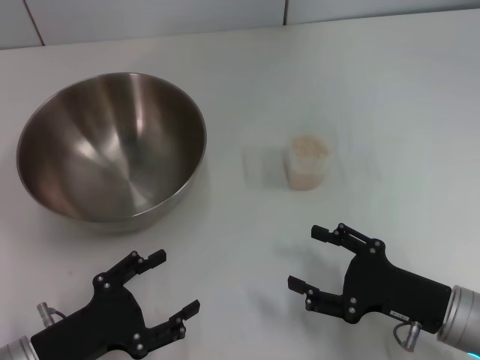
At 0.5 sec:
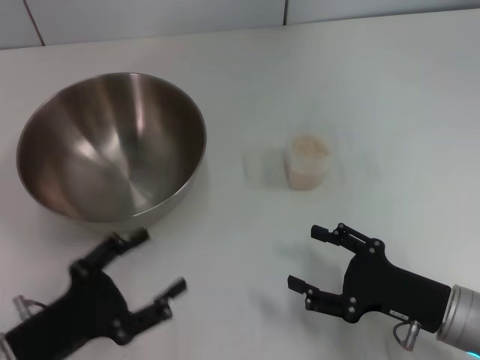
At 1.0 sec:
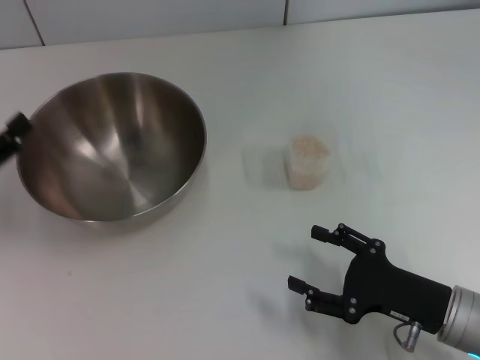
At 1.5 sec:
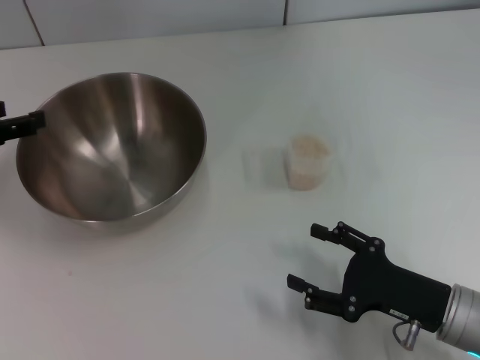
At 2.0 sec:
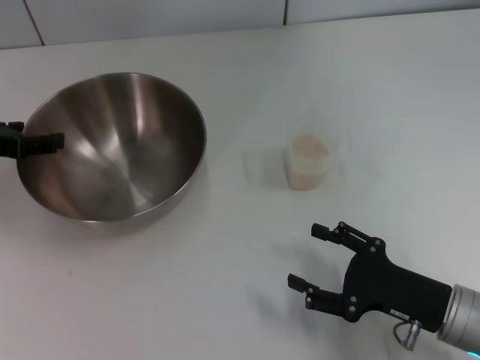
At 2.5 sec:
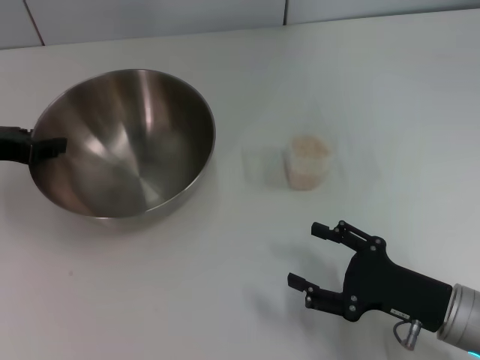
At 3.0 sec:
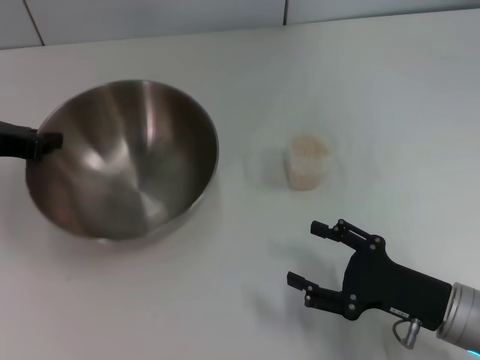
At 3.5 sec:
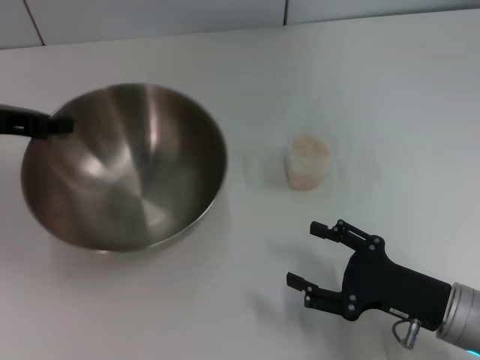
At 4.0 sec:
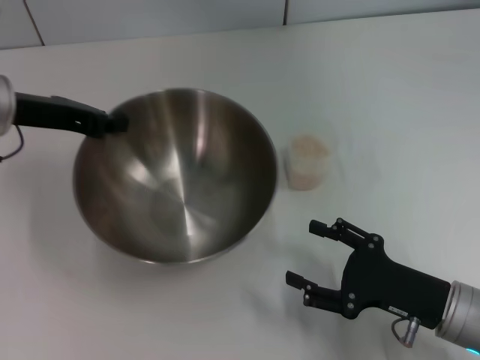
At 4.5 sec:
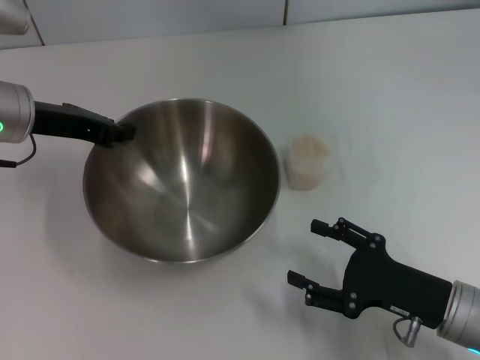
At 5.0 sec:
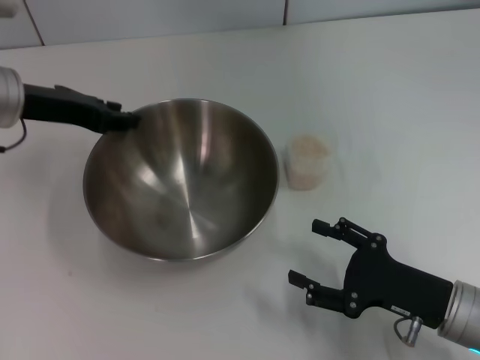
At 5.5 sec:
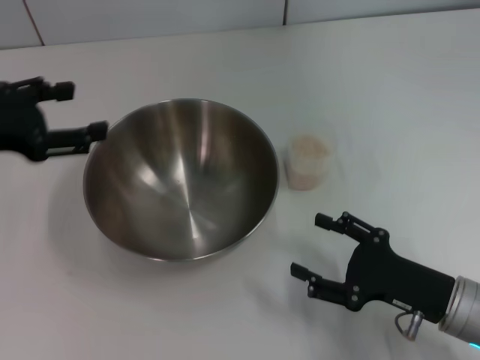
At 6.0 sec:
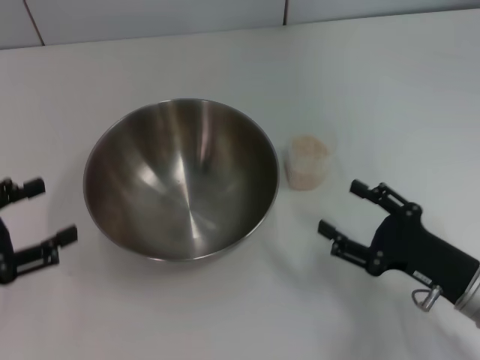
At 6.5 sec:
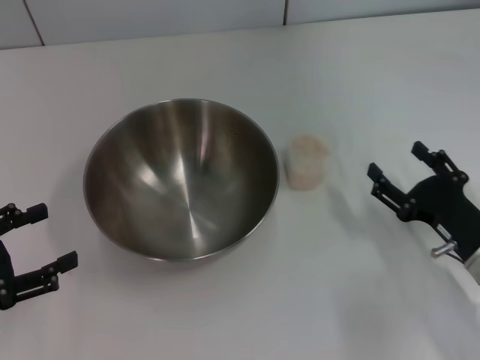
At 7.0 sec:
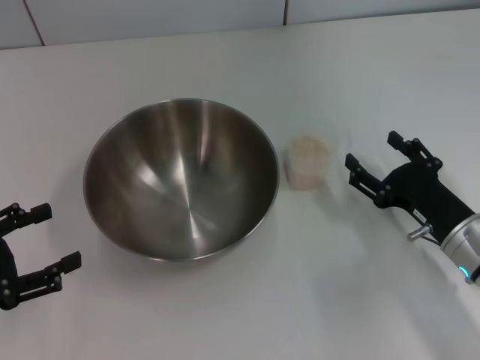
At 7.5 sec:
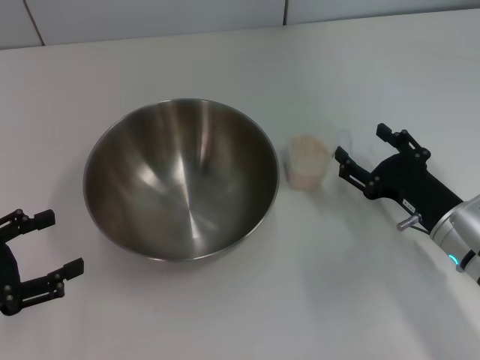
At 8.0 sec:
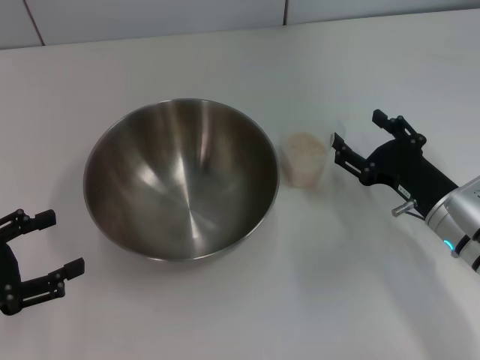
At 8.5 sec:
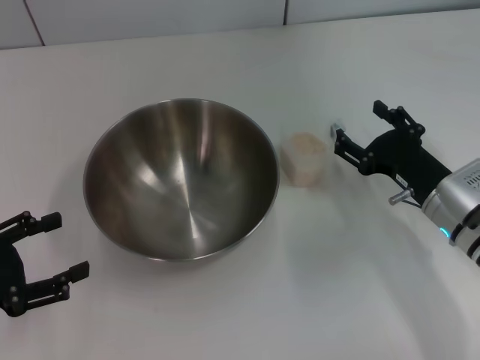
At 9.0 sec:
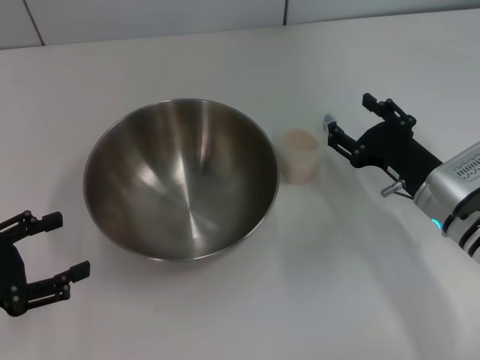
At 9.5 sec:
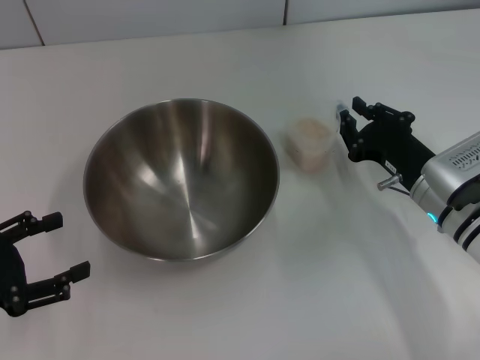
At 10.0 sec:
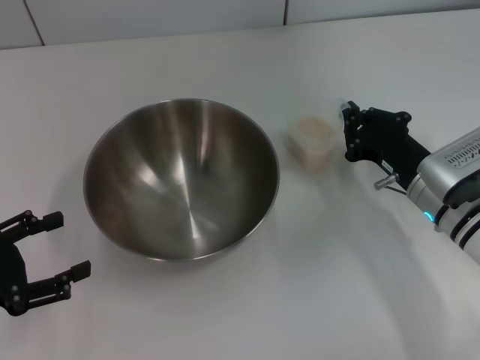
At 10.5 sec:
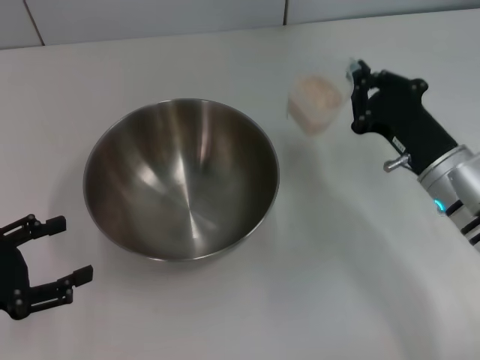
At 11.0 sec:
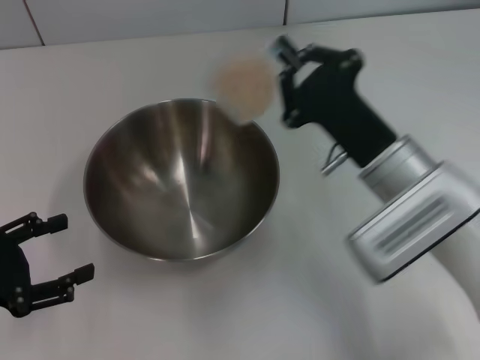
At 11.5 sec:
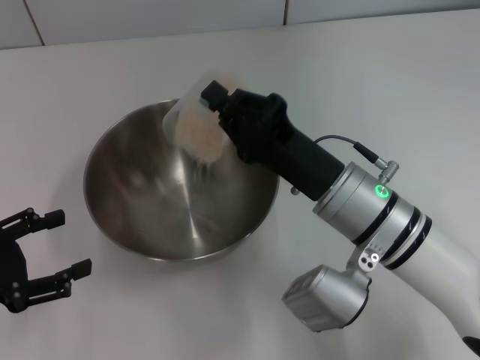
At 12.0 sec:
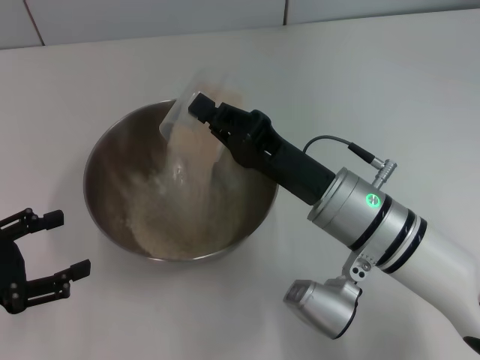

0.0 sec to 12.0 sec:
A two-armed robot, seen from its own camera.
Task of the whole recording: Place the bowl in the middle of the table with one hand and pour the rice from the grain cup into it with the other hand.
Step, 0.0 sec to 3.0 sec: Pick up the bowl with the left gripper.
Step, 4.0 sec to 5.0 sec: Place the bowl in the center of view with the left gripper.
Step, 5.5 sec to 10.0 sec: Pick up the cup with rice in it with the right gripper.
0.0 sec to 2.0 sec: The left gripper goes about 25 cm forward and upward.
2.0 sec to 4.0 sec: The left gripper is displaced to the right by some 5 cm, and closes its fingers.
4.0 sec to 6.0 sec: The left gripper travels backward and to the left by some 15 cm, and opens up.
6.0 sec to 8.0 sec: The right gripper is displaced forward by roughly 10 cm.
8.0 sec to 10.0 sec: The right gripper closes.
10.0 sec to 12.0 sec: The right gripper is displaced to the left and upward by roughly 15 cm.

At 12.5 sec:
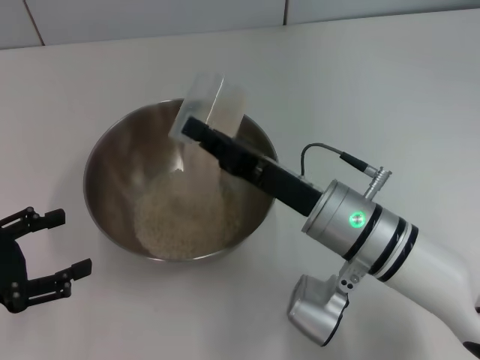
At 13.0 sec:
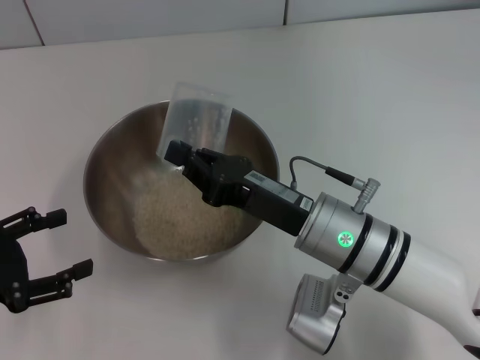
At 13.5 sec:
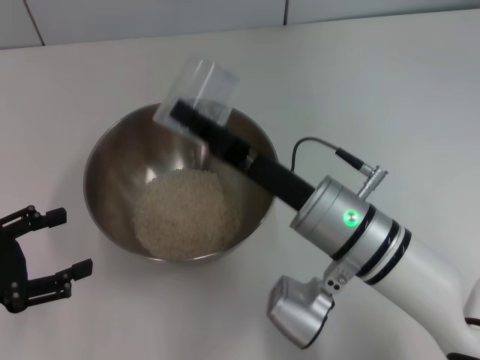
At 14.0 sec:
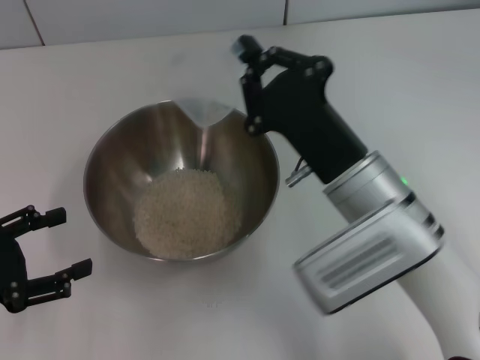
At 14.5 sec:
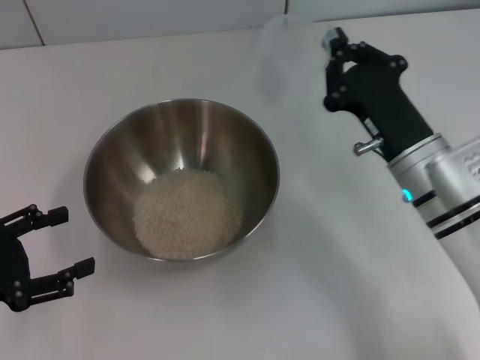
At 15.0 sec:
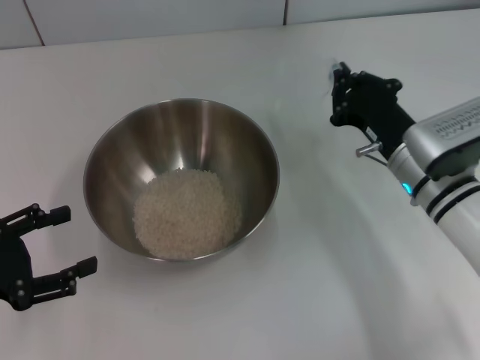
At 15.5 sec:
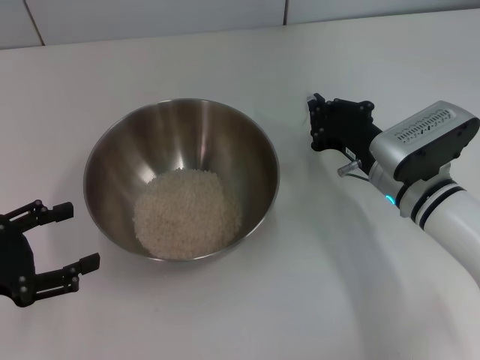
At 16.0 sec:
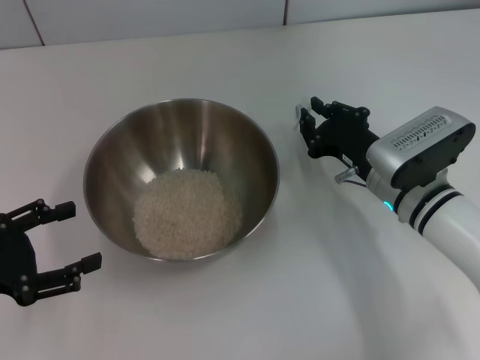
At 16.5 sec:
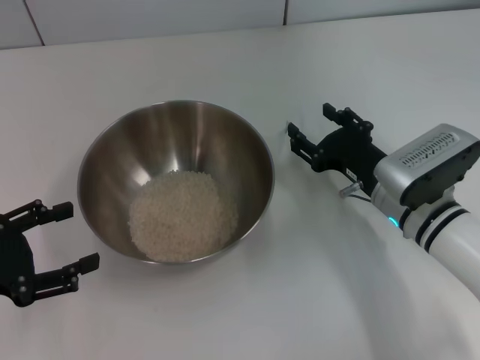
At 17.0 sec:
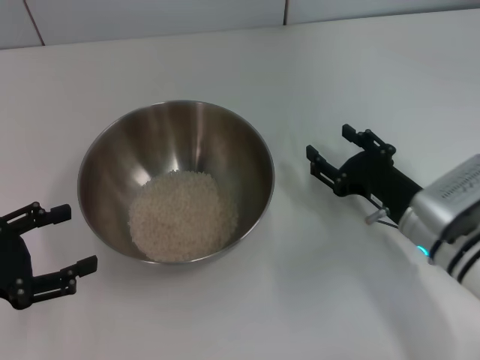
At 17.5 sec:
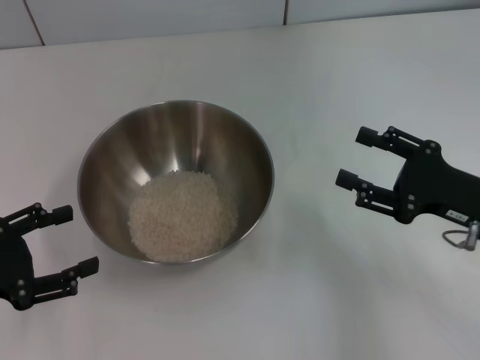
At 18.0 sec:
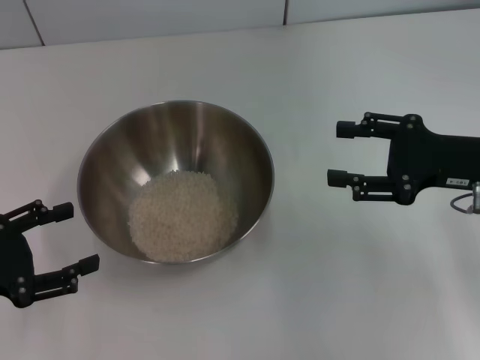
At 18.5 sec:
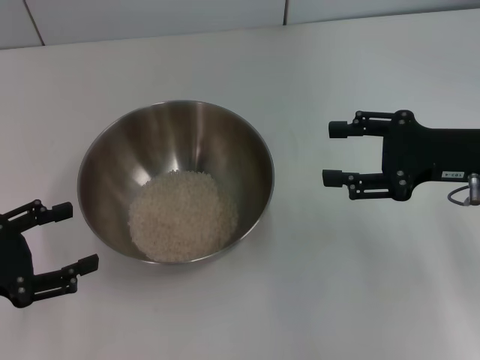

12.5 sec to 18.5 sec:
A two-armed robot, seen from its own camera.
Task of the whole recording: Place the bowl in the middle of the table with one hand and pour the rice from the grain cup into it with the other hand.
Step, 14.5 sec to 16.5 sec: Place the cup on the table with the right gripper.
12.5 sec to 14.5 sec: The right gripper moves to the right, roughly 5 cm.
14.5 sec to 16.5 sec: The right gripper shifts some 5 cm downward, and opens.
16.5 sec to 18.5 sec: The right gripper shifts roughly 15 cm upward and to the right.

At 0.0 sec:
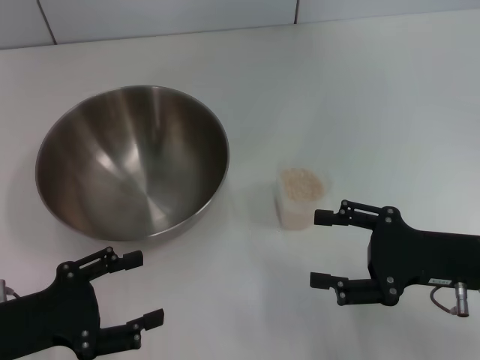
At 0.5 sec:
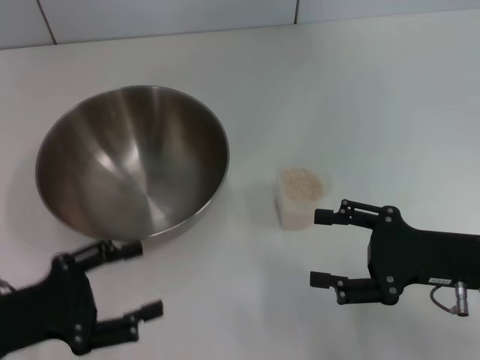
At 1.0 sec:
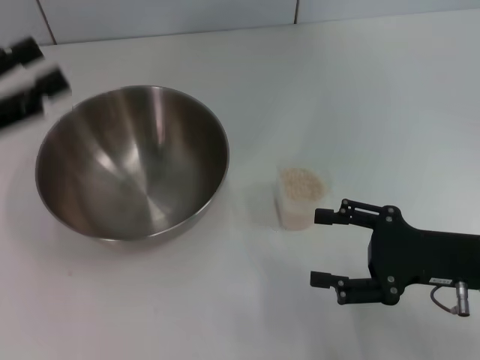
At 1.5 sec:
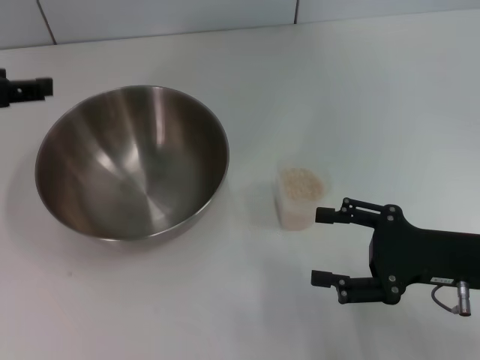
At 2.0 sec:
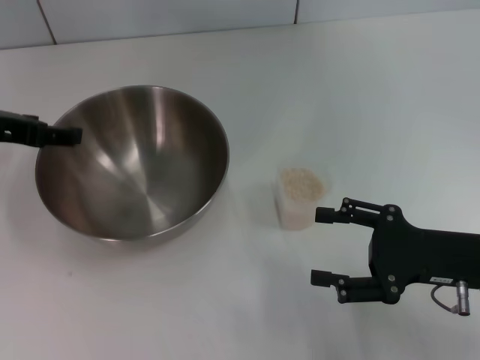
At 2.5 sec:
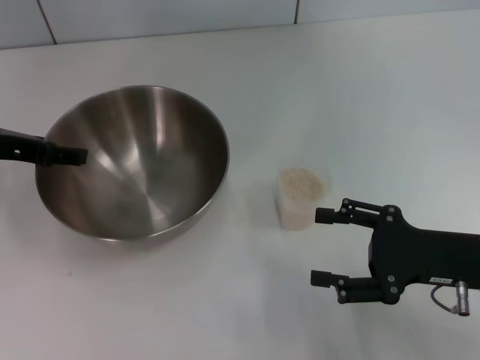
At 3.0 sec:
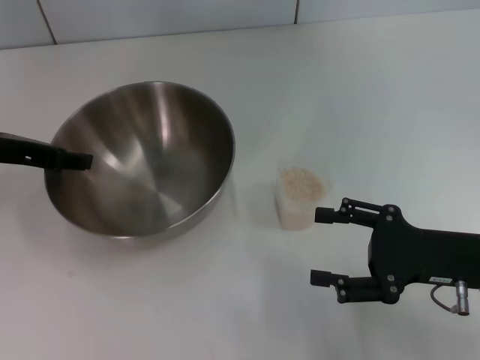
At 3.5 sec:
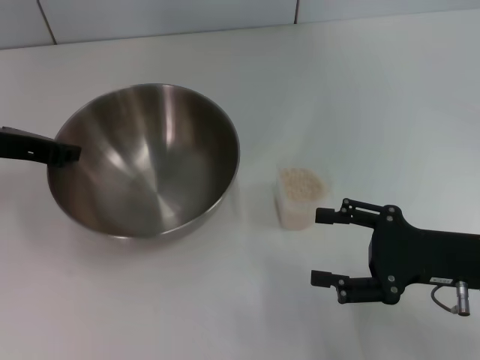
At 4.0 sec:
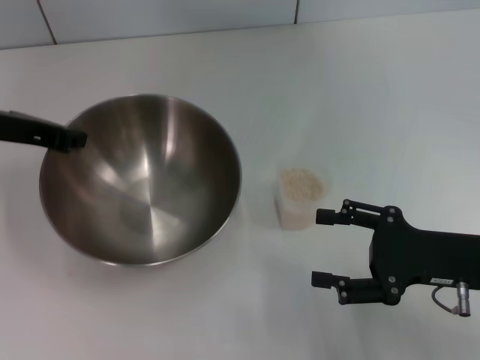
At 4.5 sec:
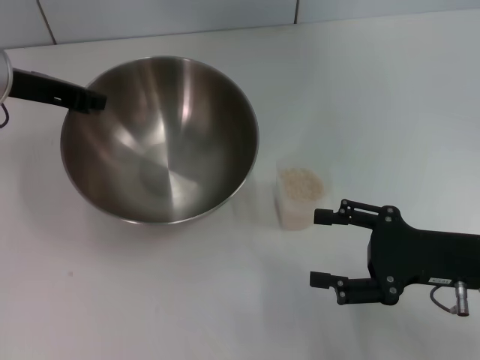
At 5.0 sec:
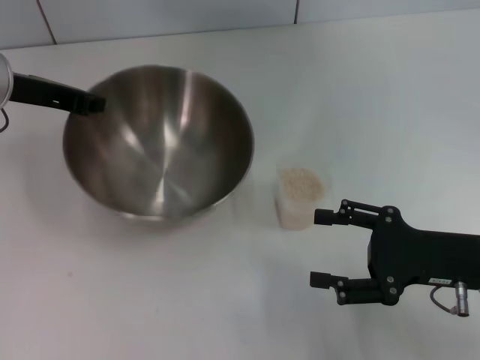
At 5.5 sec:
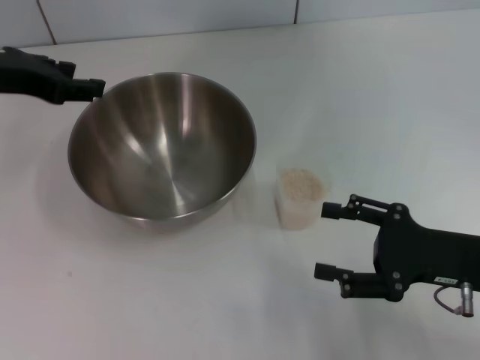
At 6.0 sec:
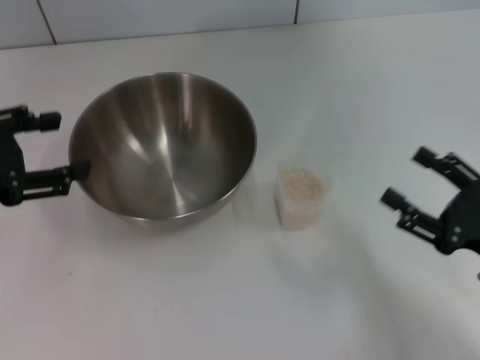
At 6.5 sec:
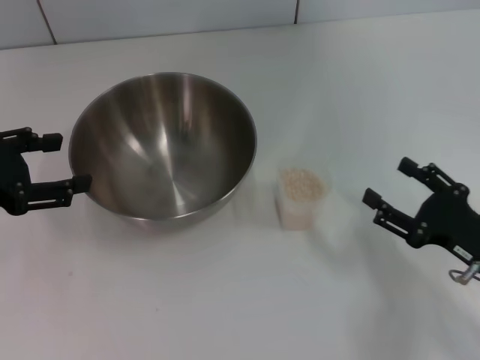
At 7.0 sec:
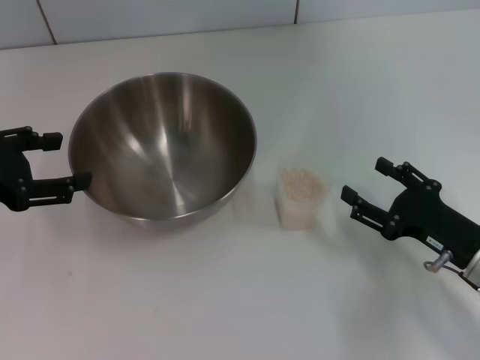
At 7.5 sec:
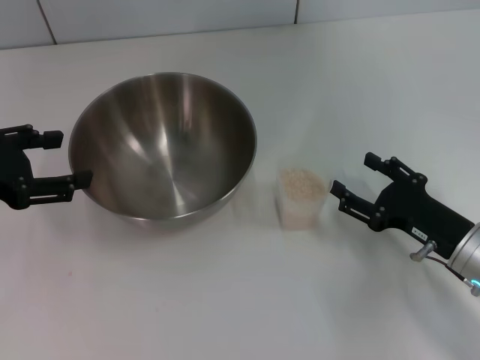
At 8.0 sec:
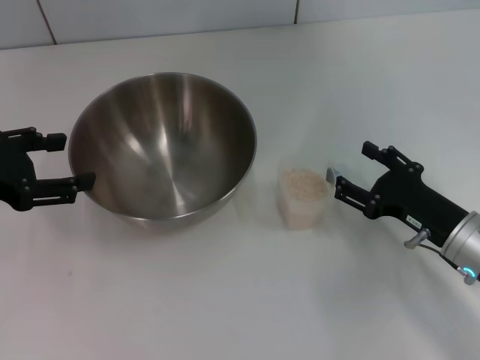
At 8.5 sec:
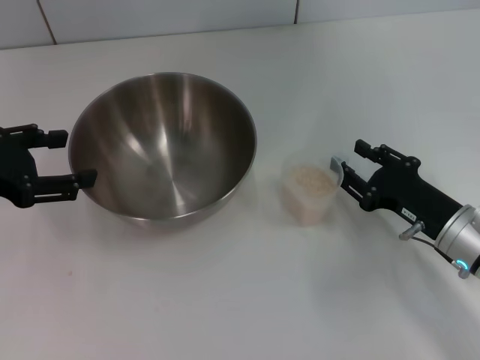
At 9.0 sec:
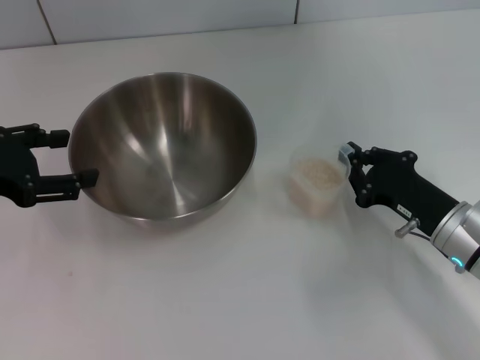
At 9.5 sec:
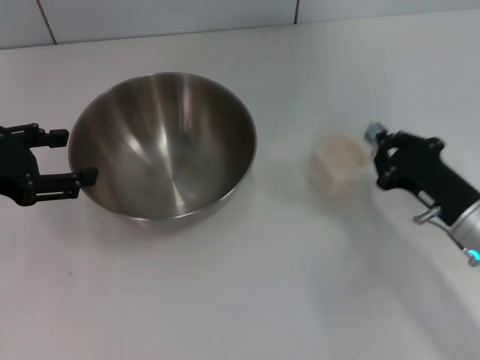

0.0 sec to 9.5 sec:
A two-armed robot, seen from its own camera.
Task of the whole recording: Place the bowl in the middle of the table with one hand and pour the rice from the grain cup into it with the other hand.
Step, 0.0 sec to 4.0 sec: Pick up the bowl with the left gripper.
Step, 4.5 sec to 5.0 sec: Place the bowl in the center of view with the left gripper.
0.0 sec to 2.0 sec: The left gripper moves forward and upward, some 20 cm.
2.0 sec to 4.0 sec: The left gripper closes.
4.0 sec to 5.5 sec: The left gripper opens its fingers.
5.5 sec to 7.5 sec: The right gripper travels downward by about 5 cm. The left gripper shifts some 10 cm backward and to the left, and opens up.
7.5 sec to 9.5 sec: The right gripper closes up.
